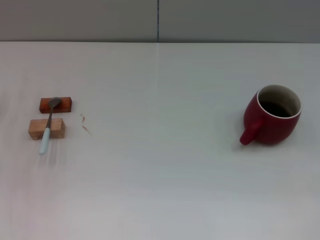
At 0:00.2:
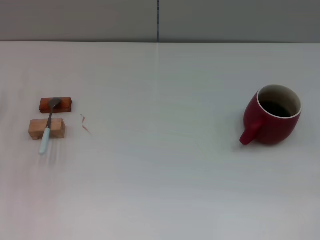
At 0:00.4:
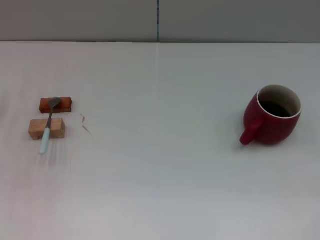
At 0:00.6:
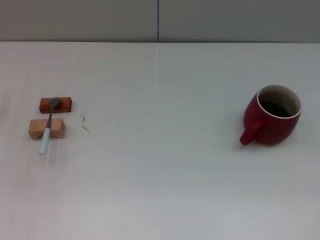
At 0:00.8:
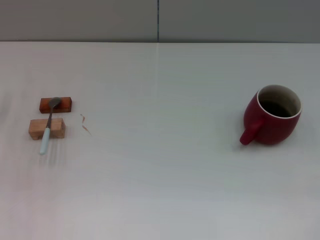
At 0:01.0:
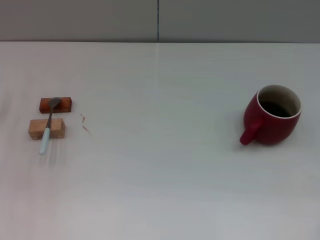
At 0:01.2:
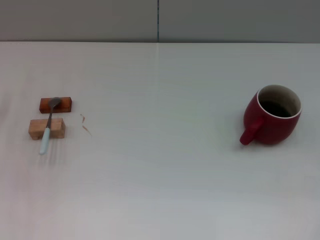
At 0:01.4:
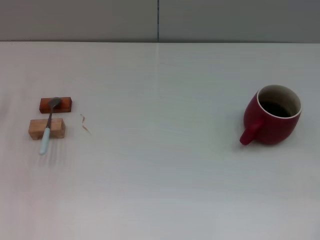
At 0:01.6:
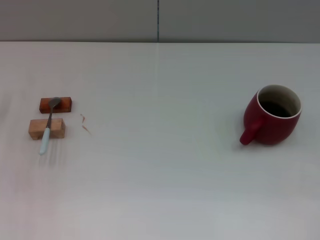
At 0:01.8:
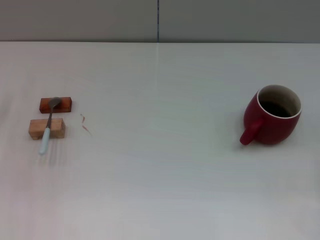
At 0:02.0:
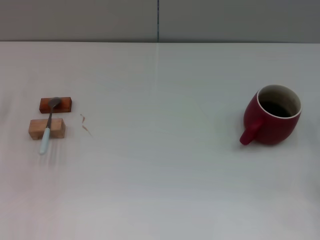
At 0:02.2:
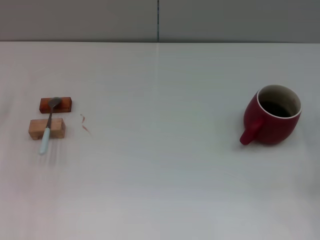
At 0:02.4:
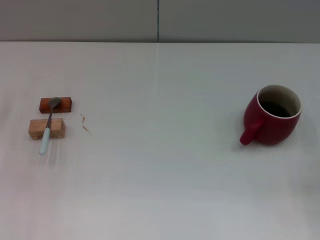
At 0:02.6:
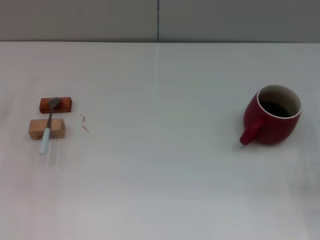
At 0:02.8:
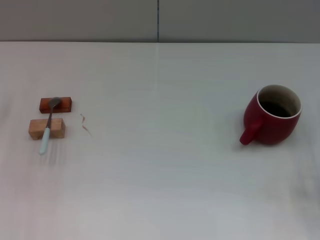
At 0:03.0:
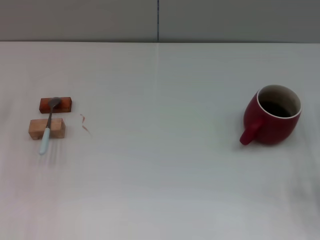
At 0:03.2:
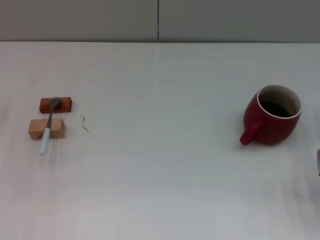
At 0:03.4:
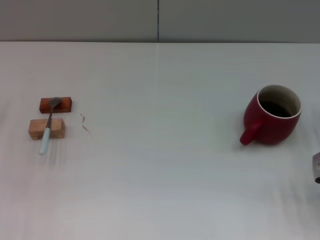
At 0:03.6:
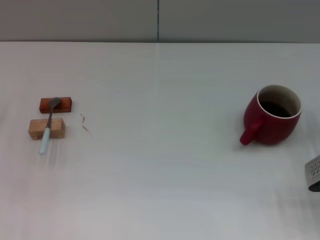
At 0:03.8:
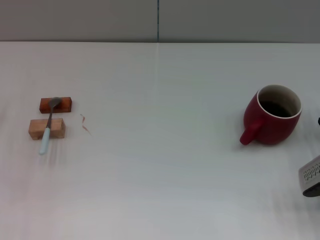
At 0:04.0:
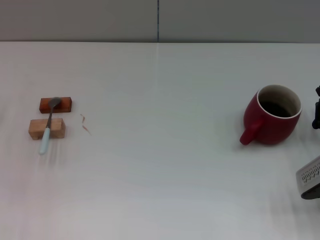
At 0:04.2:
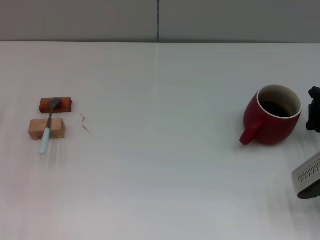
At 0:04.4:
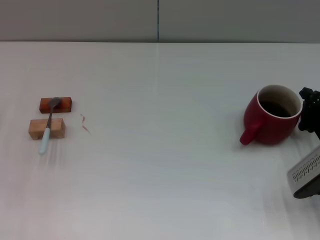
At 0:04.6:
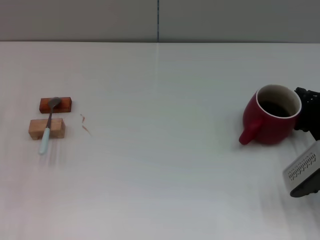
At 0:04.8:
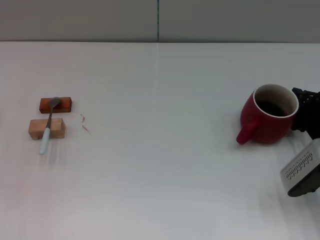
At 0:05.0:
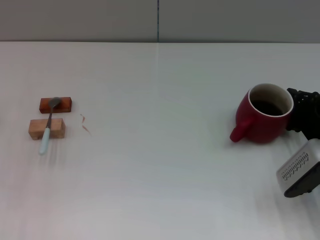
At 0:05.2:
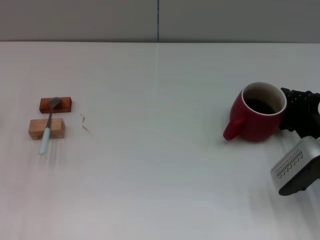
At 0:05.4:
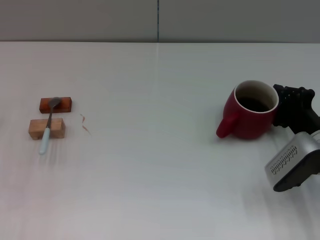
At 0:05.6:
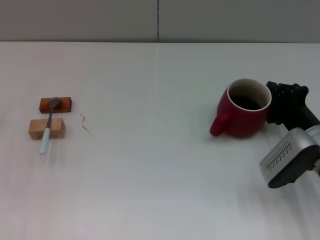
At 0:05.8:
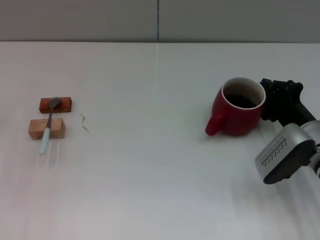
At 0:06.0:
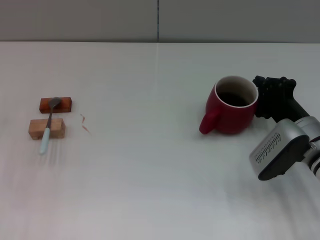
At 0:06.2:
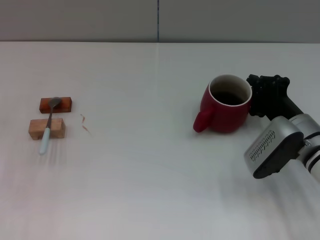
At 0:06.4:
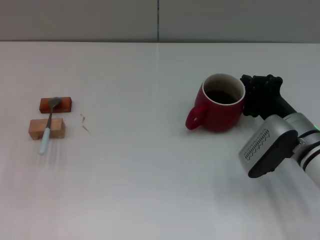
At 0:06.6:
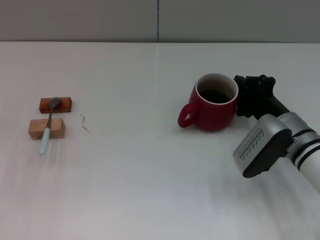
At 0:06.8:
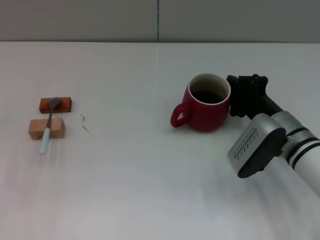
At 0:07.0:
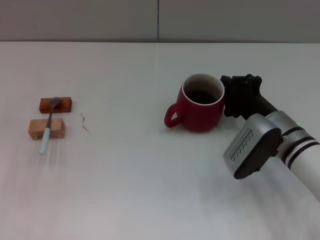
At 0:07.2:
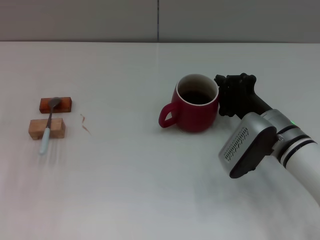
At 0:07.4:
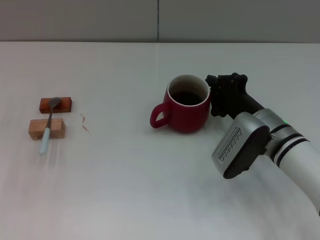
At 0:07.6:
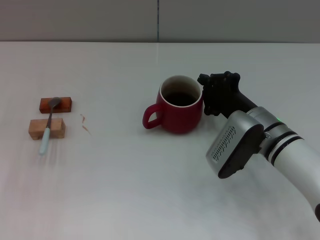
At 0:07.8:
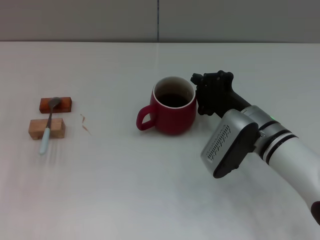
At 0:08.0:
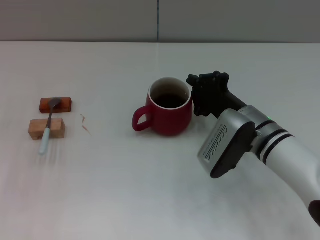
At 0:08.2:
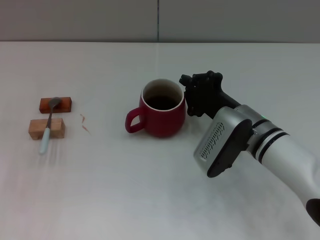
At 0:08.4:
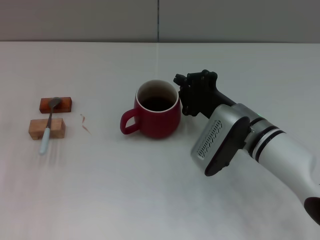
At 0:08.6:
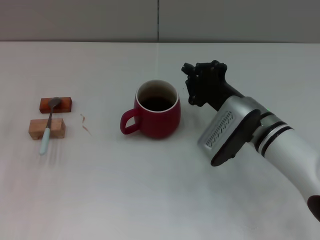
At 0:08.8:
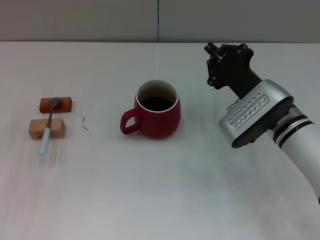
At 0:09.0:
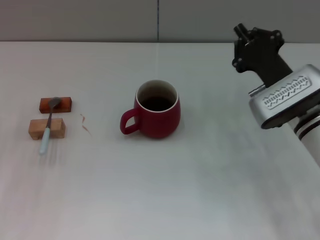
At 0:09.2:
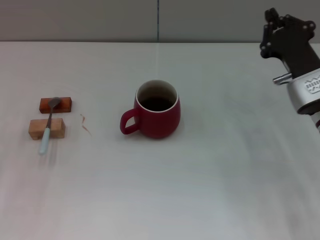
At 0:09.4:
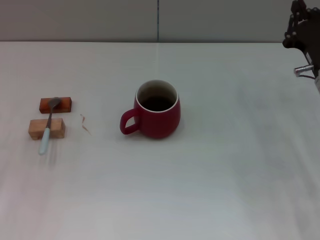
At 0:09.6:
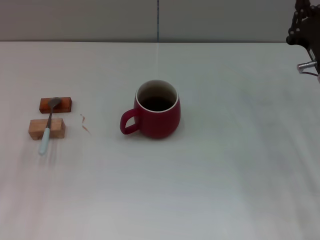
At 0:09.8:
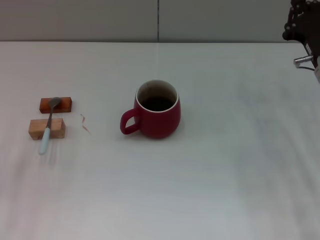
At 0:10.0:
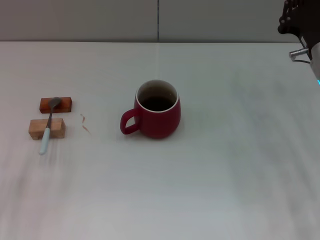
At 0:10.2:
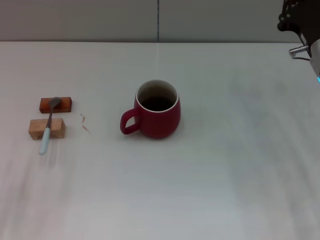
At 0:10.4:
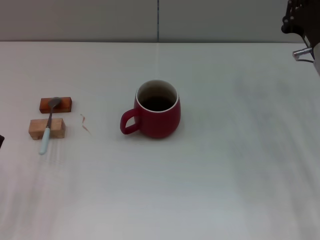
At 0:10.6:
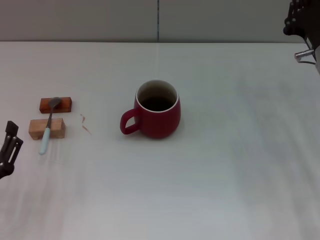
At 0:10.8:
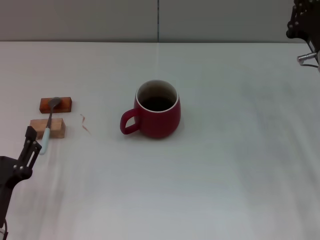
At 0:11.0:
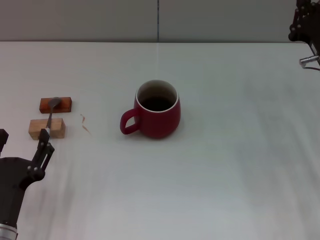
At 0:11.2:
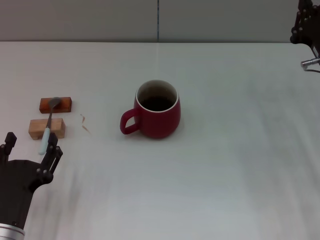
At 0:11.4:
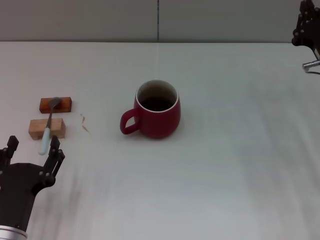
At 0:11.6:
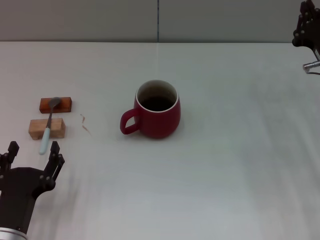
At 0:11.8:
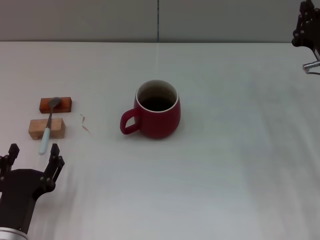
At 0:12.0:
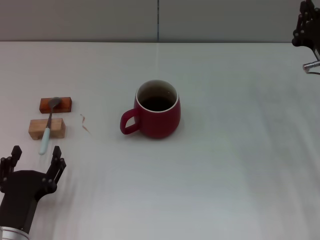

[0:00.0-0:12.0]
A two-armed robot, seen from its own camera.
Task of the whole recording: Move the red cup to the center, lift the blue spoon, stir it three times in the cup, and put the spoon into the cup.
Step, 0:00.0 to 0:08.6: Move the cup with coffee to the center of view with the right gripper.
0:03.0 to 0:04.4: The right gripper moves roughly 5 cm.
0:04.4 to 0:06.0: The right gripper moves to the left, roughly 5 cm.
0:06.0 to 0:07.6: The right gripper travels to the left by approximately 5 cm.
0:07.6 to 0:09.0: The right gripper ends up roughly 5 cm from where it was.
0:09.0 to 0:10.4: The right gripper shifts some 5 cm to the right.
0:10.4 to 0:12.0: The left gripper travels to the right by approximately 5 cm.

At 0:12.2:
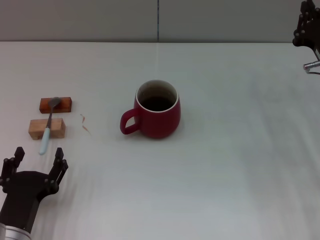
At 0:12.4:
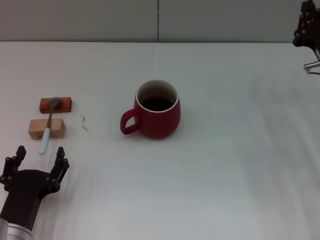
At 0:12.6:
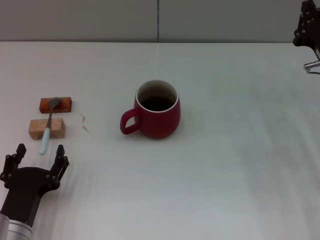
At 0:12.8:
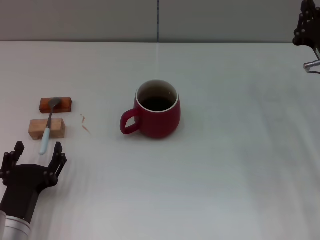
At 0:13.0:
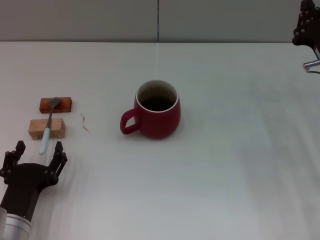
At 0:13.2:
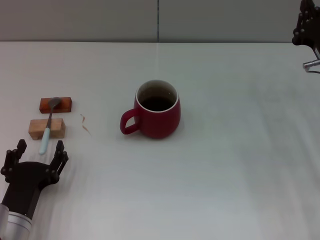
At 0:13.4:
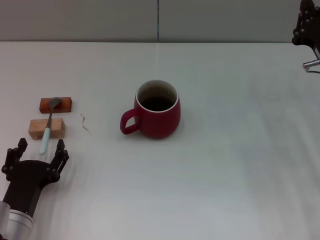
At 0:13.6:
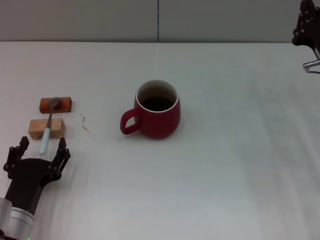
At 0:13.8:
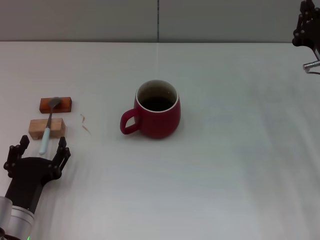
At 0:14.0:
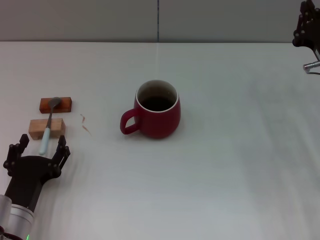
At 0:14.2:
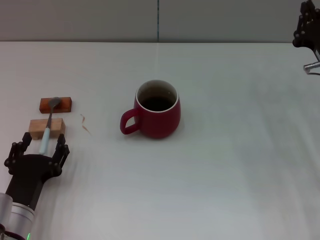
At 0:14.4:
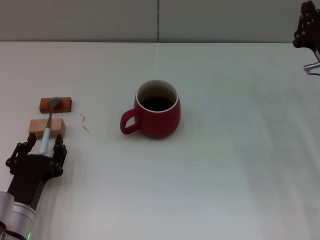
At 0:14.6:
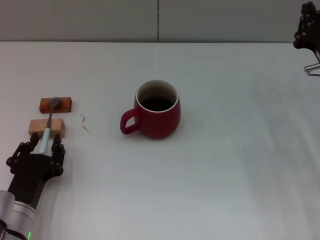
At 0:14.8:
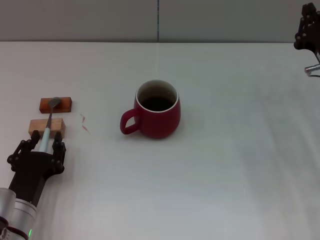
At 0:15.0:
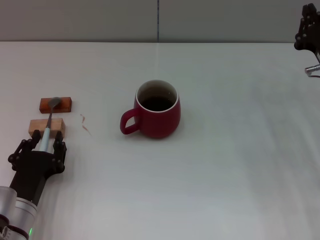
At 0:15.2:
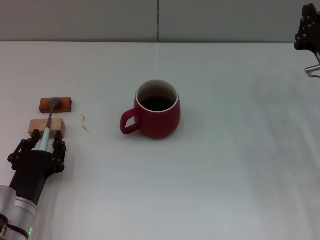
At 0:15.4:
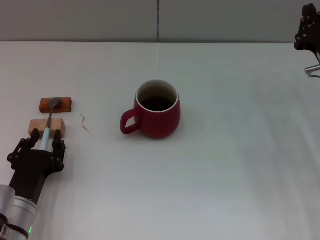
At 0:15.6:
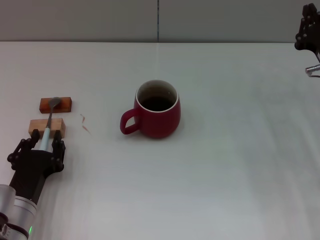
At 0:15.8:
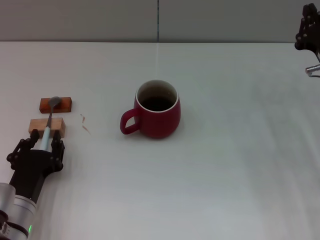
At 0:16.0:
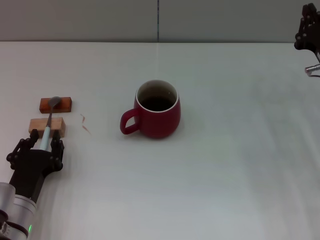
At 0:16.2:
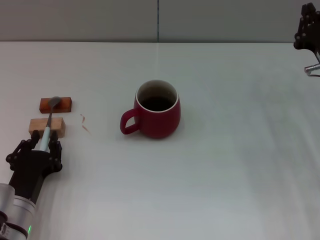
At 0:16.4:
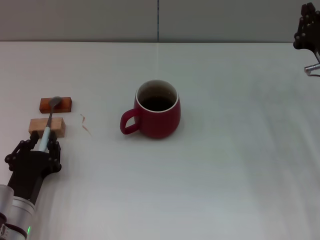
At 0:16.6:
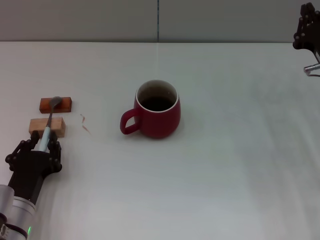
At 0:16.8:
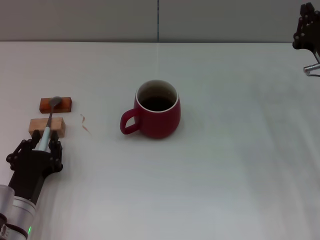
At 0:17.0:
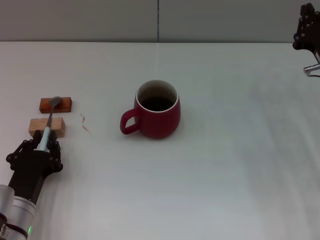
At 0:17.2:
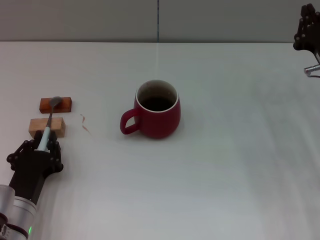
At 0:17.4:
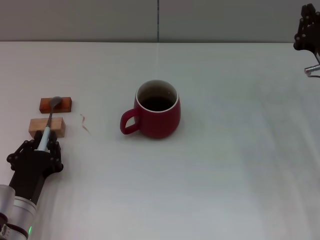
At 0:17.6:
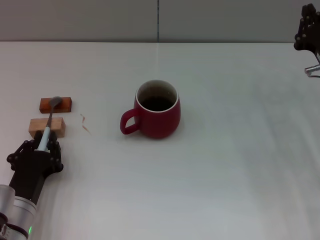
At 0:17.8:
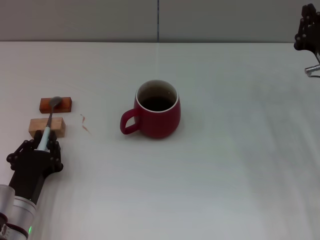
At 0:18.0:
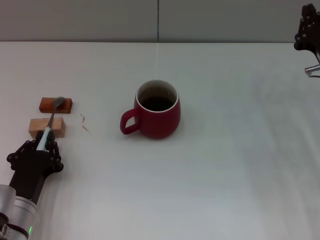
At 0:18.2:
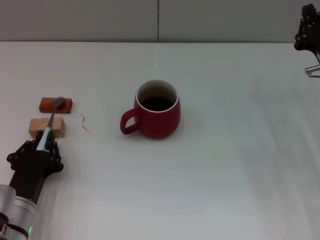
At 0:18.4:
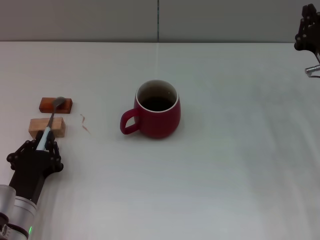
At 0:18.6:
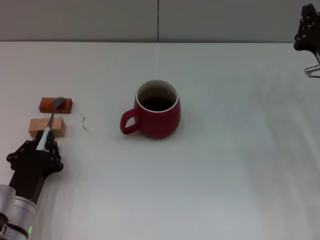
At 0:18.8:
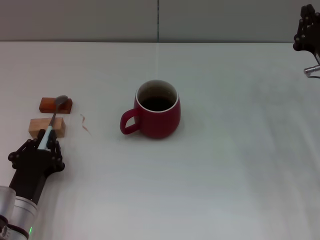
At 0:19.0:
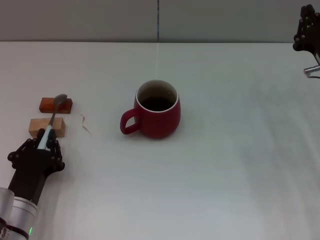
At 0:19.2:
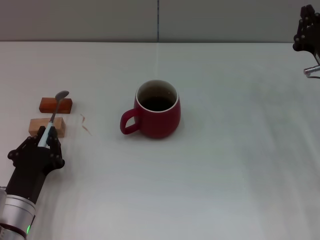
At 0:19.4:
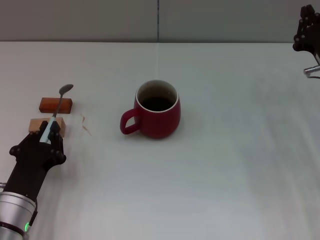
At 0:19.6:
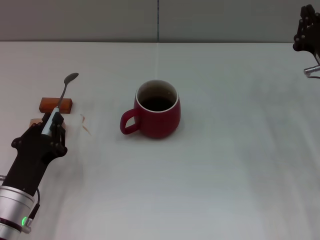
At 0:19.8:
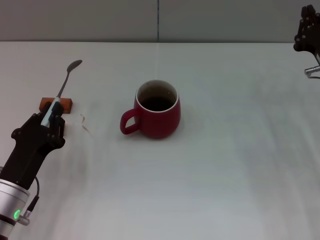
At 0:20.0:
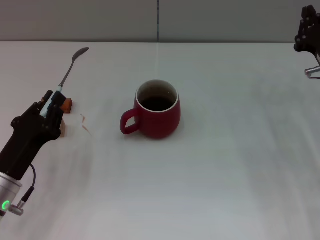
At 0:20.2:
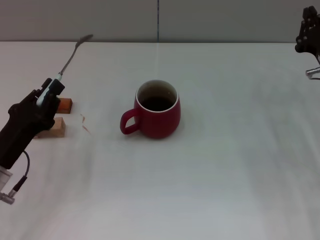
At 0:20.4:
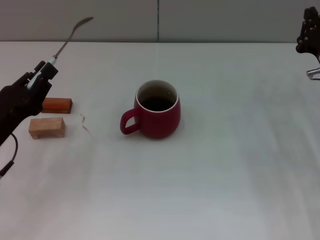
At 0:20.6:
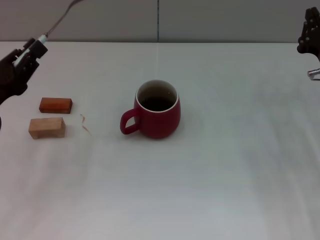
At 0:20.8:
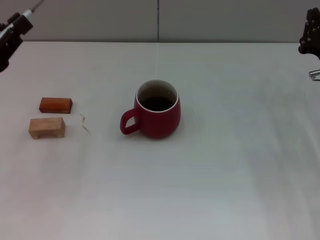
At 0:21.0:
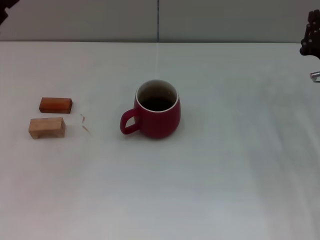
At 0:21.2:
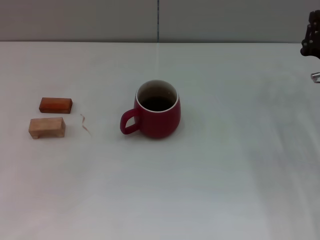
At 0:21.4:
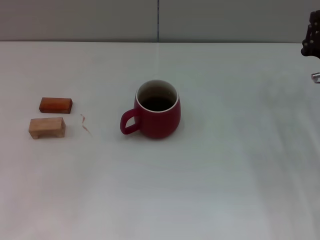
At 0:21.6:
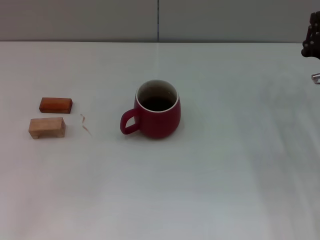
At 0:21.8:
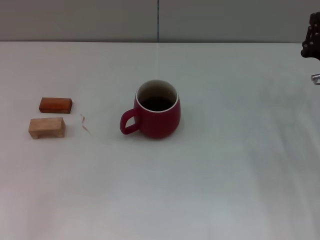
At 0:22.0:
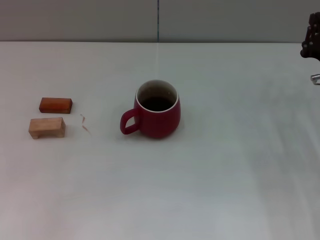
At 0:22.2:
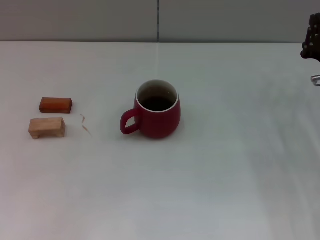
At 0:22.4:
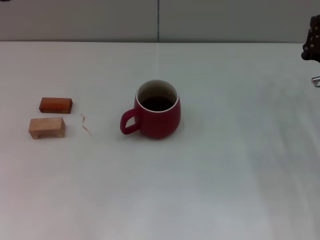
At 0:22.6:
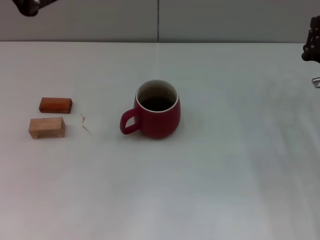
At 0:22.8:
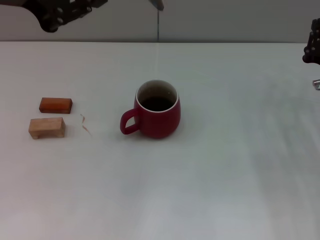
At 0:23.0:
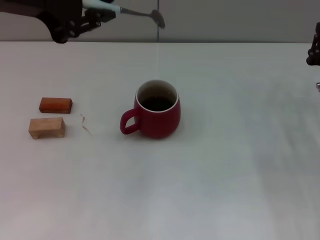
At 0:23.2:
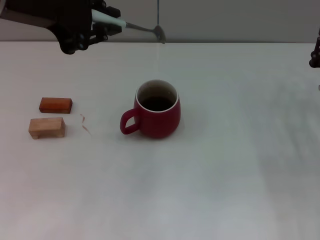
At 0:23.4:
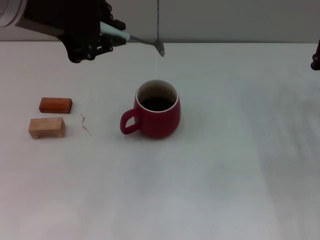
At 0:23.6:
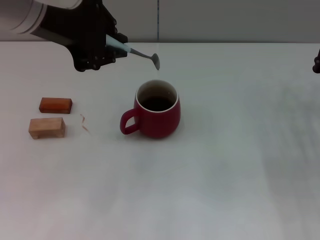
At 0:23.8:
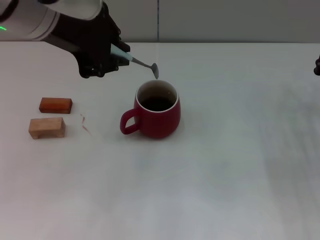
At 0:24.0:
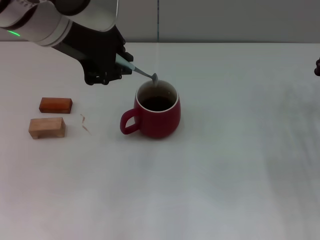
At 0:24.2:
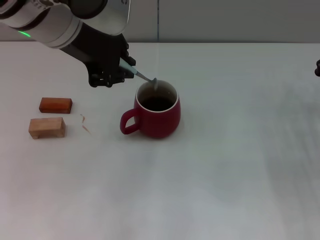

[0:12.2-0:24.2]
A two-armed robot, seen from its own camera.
Task of the whole recording: Move the red cup to the center, lift the blue spoon, stir it three times in the cup, and put the spoon into the cup.
Step, 0:12.2 to 0:20.2: Pick up the spoon with the left gripper.
0:12.2 to 0:13.8: The grippers stay close to where they were, moving slightly.
0:13.8 to 0:15.2: The left gripper closes.
0:15.2 to 0:18.2: The two grippers keep their place.
0:19.8 to 0:21.2: The left gripper moves upward, to the left and forward, approximately 25 cm.
0:22.6 to 0:24.2: The left gripper is displaced to the right and downward by about 10 cm.
